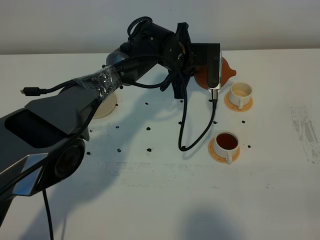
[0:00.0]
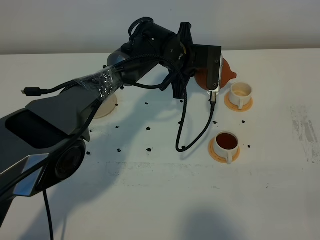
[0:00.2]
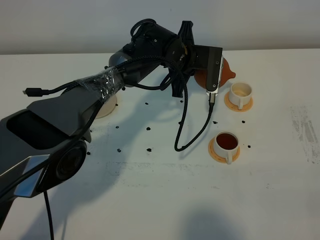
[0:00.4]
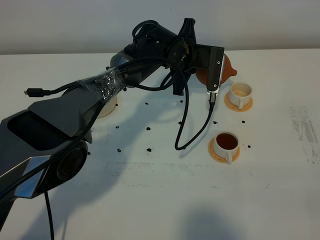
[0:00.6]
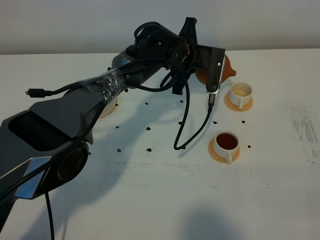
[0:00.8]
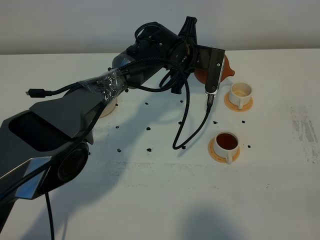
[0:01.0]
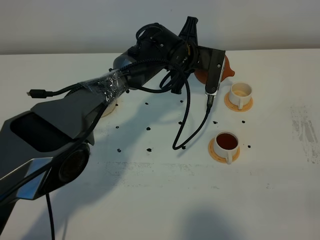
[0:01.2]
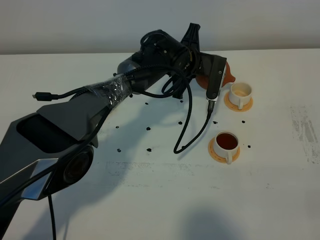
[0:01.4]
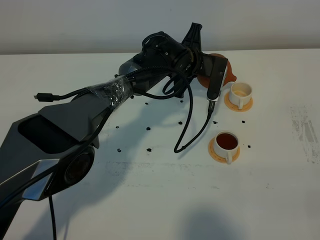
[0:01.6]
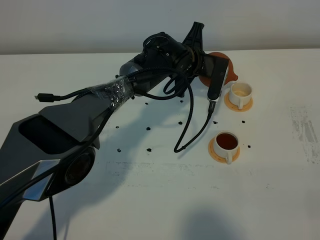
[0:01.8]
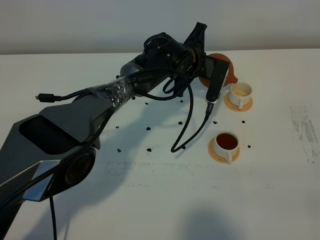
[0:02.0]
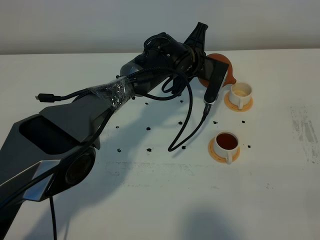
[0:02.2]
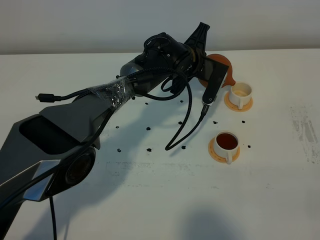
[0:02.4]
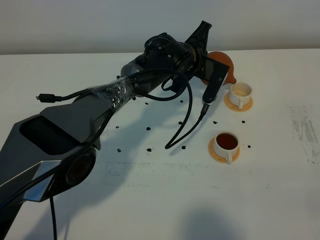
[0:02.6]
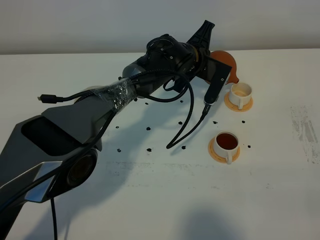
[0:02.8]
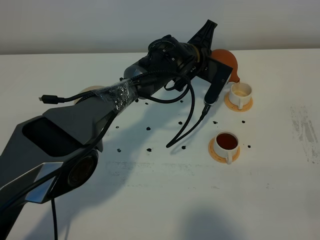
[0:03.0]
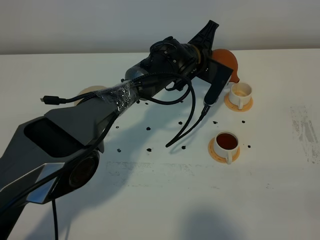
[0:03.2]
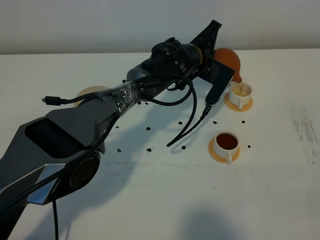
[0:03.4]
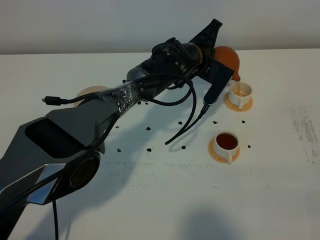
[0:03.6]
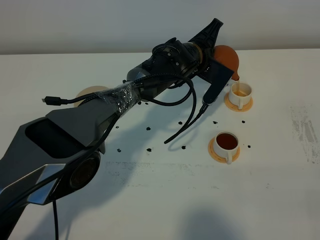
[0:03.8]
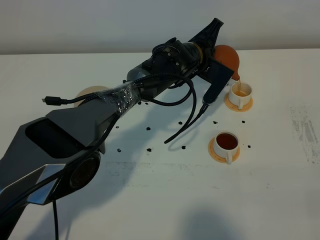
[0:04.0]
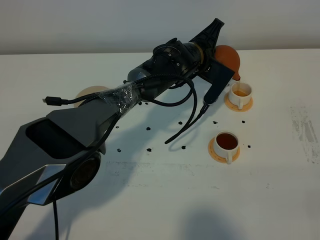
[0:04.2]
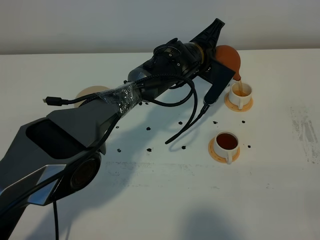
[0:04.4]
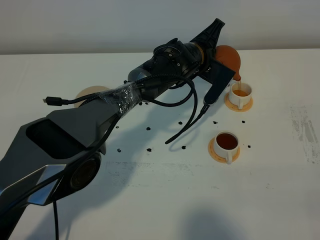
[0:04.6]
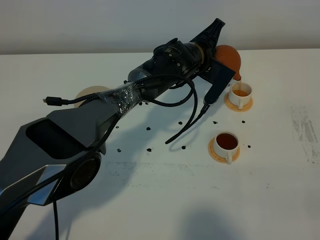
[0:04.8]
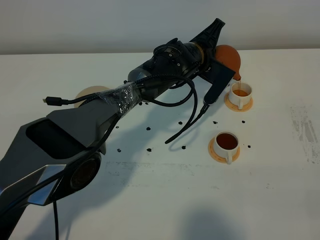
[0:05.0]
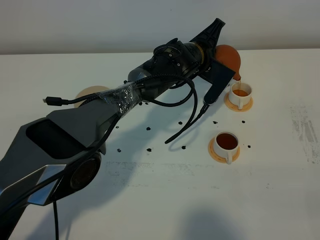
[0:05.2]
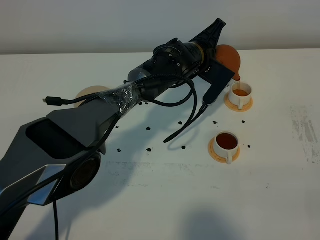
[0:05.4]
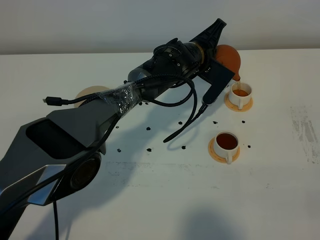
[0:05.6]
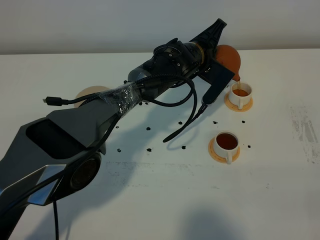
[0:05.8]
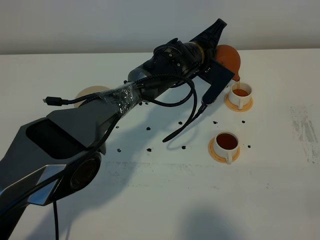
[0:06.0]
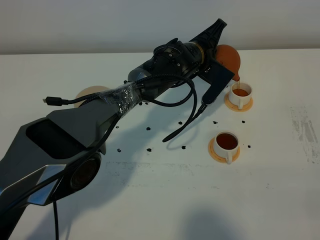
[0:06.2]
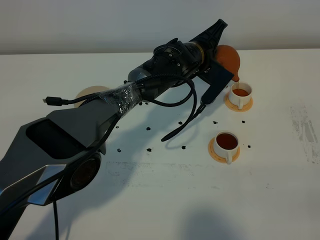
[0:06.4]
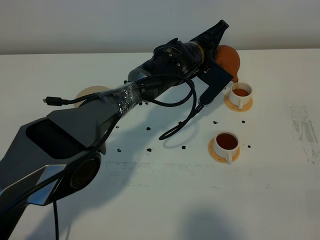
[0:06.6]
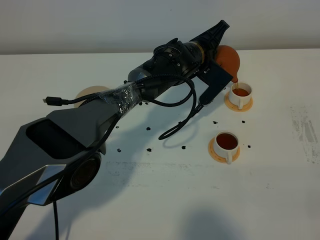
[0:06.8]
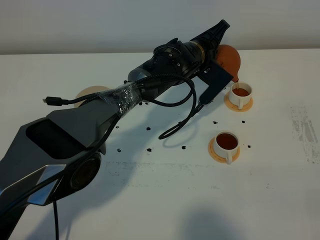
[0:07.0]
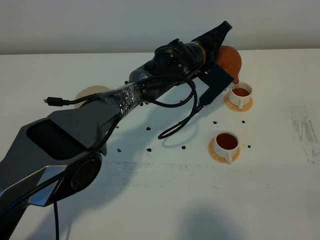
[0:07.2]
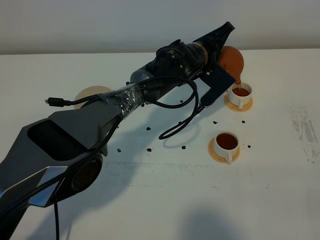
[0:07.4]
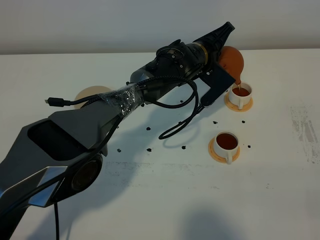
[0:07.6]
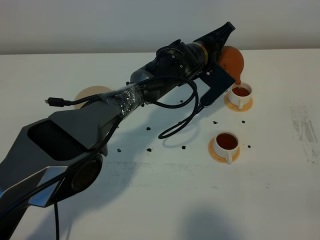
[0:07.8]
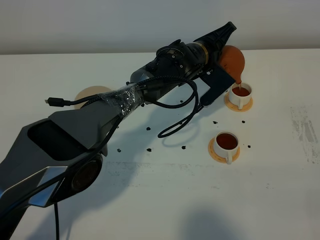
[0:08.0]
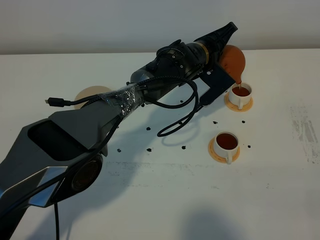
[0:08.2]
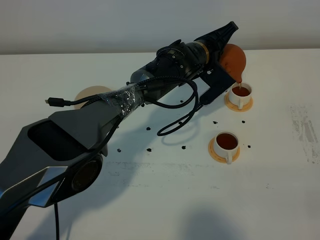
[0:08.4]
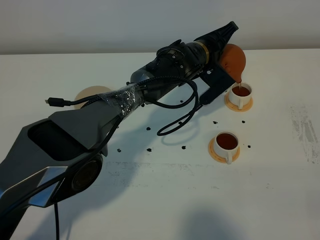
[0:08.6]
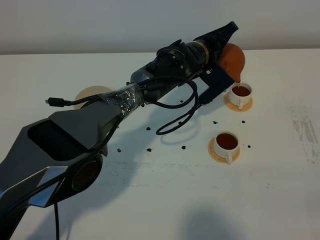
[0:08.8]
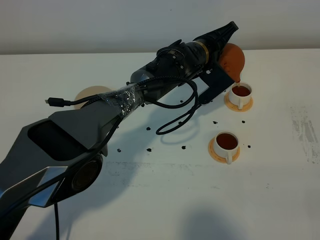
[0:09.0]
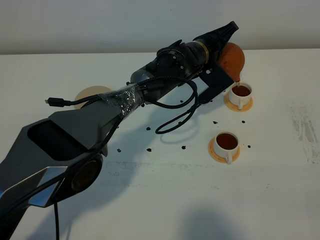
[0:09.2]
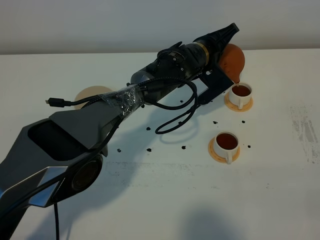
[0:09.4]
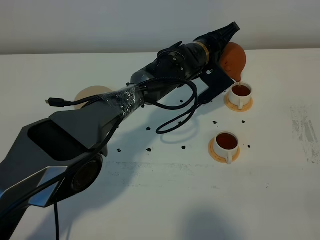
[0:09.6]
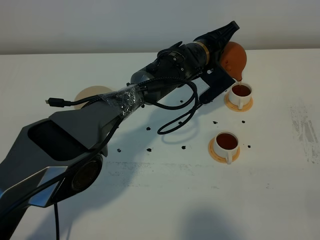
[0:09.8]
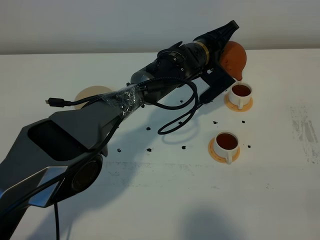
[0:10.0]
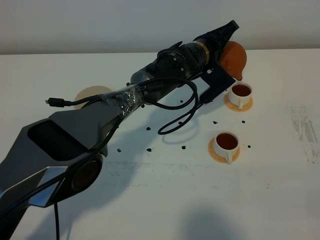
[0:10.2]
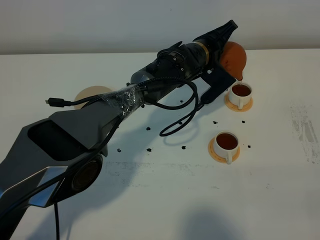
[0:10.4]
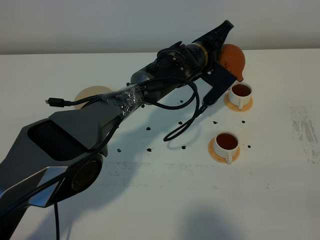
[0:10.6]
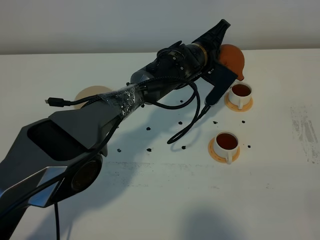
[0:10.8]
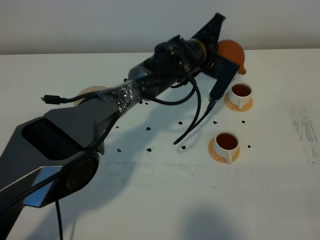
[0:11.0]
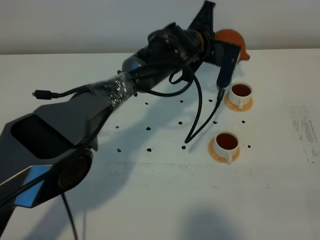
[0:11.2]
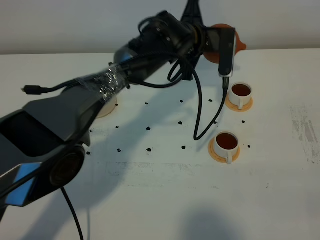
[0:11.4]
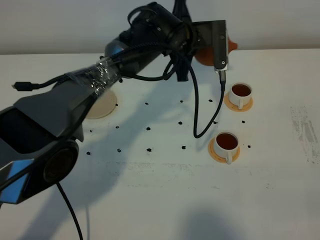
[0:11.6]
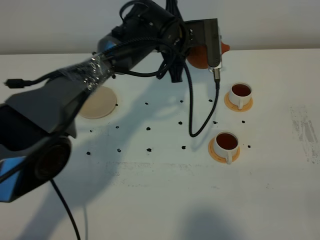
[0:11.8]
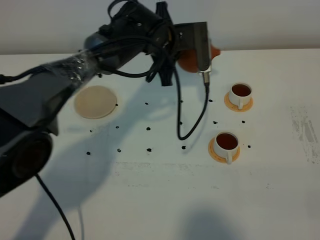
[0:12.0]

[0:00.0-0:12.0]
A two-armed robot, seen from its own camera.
Task of the whole recording: grasp the brown teapot and pour the tea into the two white teacups one by one, put the brown teapot back in its original place.
Step, 0:00.0 to 0:11.0: Pour tea into the teacup with the left gripper.
0:00.0 to 0:01.6: There are only small adjustments of the grippers.
0:01.6 to 0:03.0: There are only small adjustments of the grippers.
0:03.0 to 0:04.4: The grippers move only a little.
0:04.4 to 0:06.0: The two grippers keep their place.
0:06.0 to 0:09.0: The grippers stay close to where they were, moving slightly.
0:09.0 to 0:10.4: Neither gripper changes place.
0:10.4 to 0:12.0: The left gripper moves to the left and upward, approximately 10 cm.

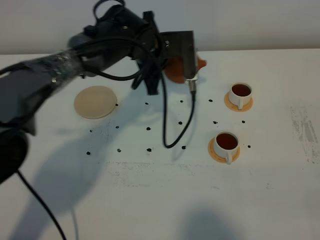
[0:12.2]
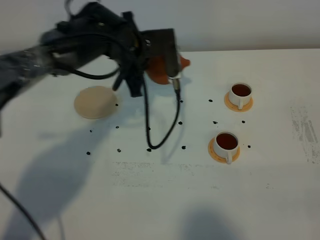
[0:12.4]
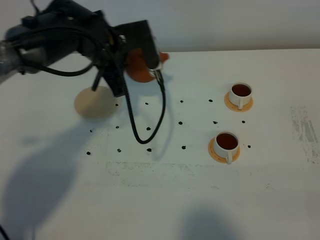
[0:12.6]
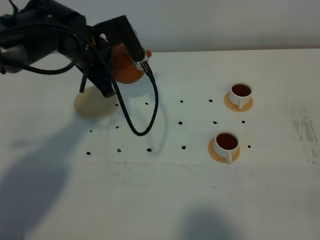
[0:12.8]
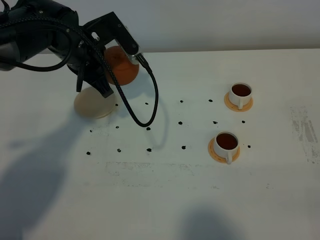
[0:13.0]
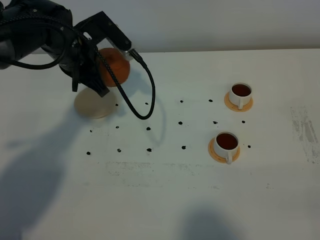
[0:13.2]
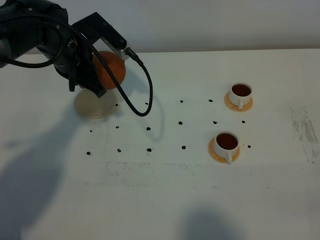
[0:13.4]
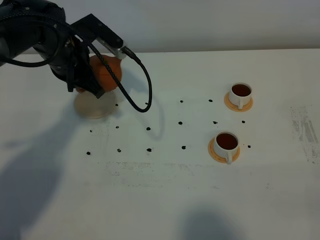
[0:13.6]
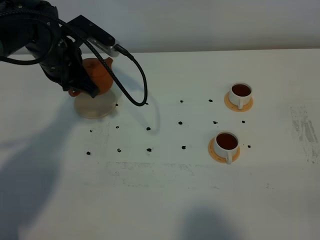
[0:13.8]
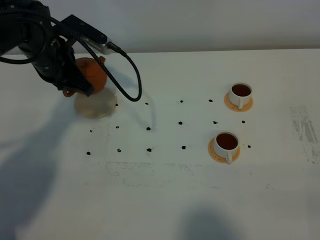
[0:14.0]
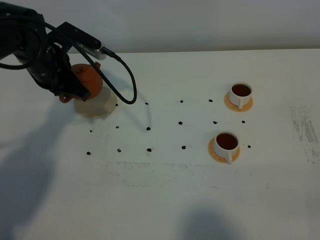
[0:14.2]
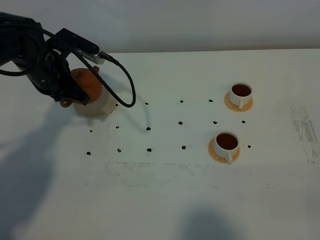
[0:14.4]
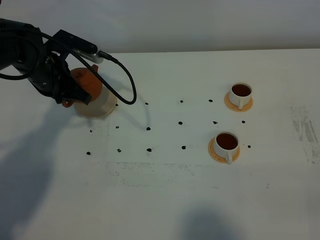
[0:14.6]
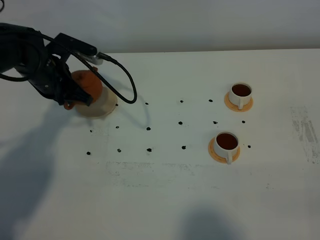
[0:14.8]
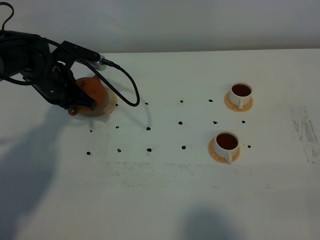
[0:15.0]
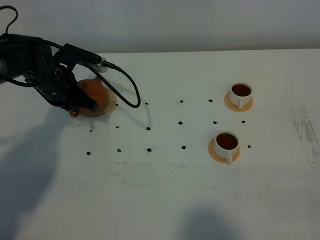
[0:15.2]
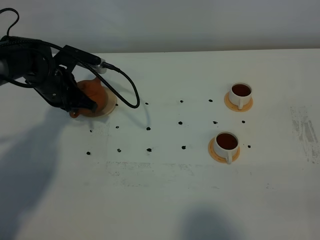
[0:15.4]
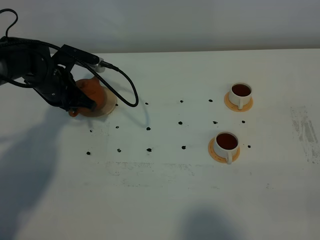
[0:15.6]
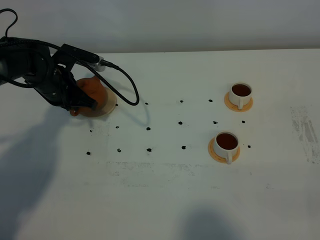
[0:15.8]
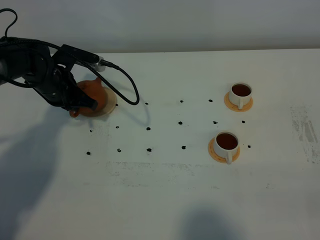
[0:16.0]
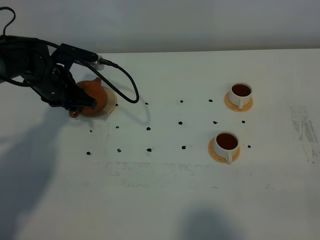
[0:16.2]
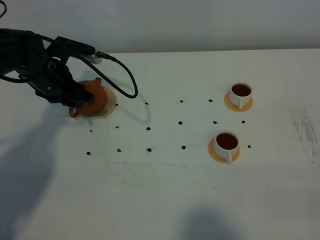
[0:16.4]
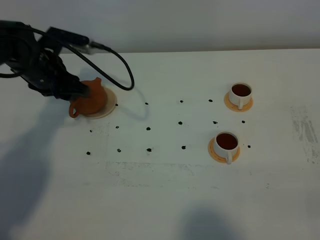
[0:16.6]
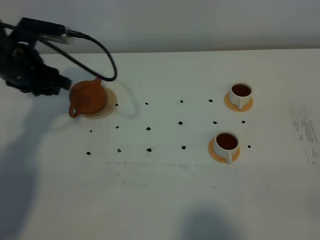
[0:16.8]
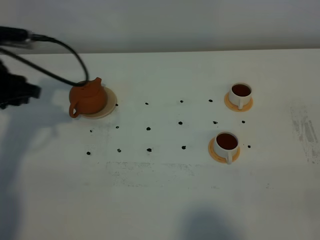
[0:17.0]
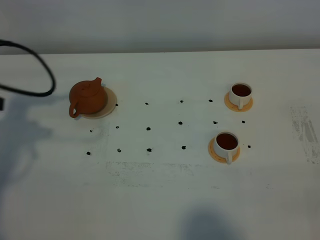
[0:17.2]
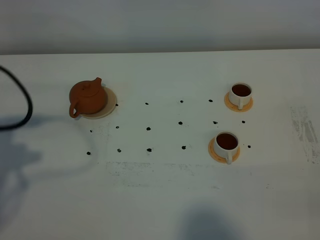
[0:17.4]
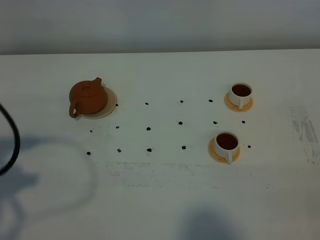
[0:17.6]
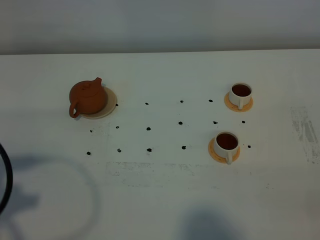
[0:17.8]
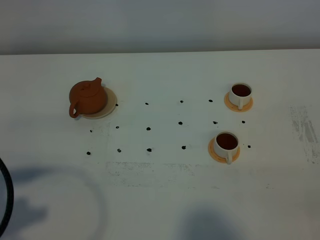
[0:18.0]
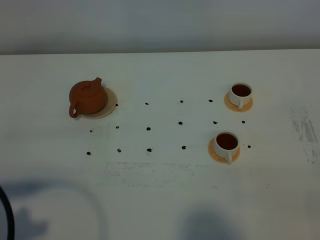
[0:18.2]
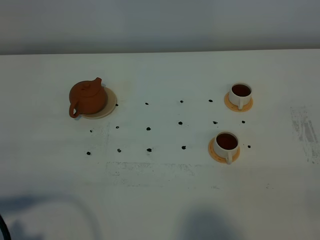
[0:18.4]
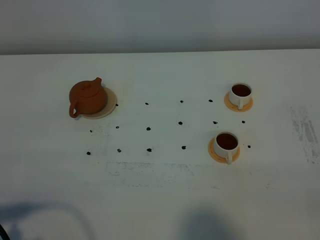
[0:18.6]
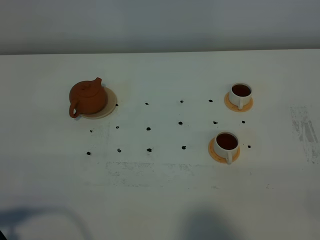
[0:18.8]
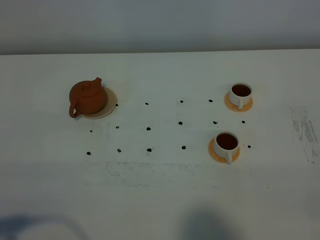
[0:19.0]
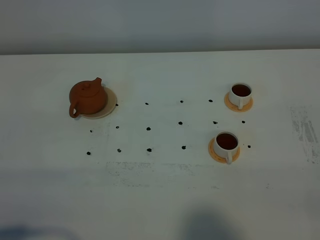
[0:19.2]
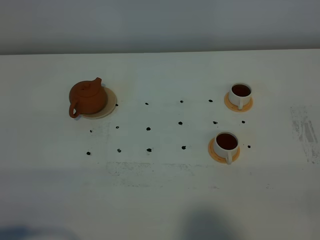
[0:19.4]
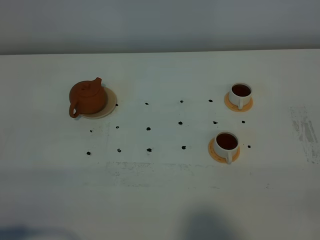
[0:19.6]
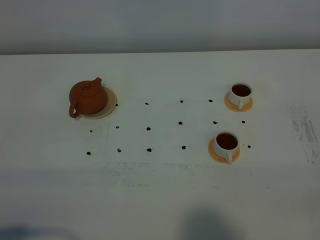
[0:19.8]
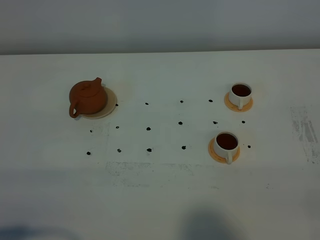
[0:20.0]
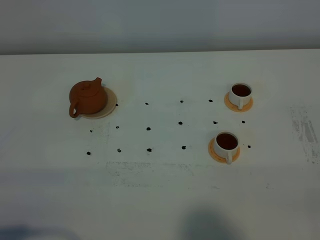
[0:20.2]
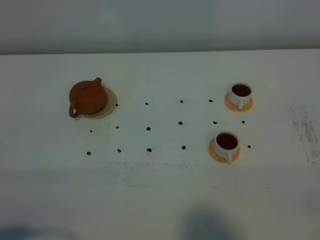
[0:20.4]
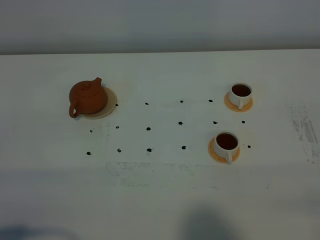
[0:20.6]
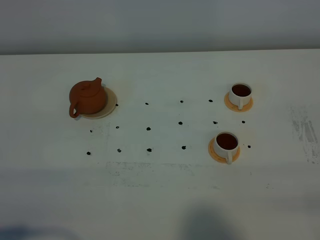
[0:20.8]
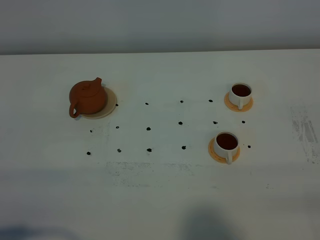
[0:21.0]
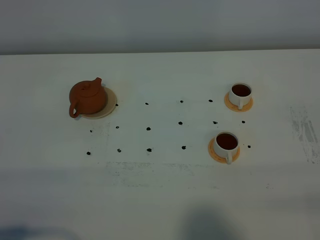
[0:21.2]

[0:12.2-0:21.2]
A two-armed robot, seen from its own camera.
Task of the whole recording: grasp the brown teapot and pour the tea into the two white teacups one by one, put the brown teapot back in its original place.
0:12.2 to 0:13.8: The left gripper moves to the left, about 15 cm.
0:13.8 to 0:15.2: The left gripper shifts about 10 cm downward.
0:15.2 to 0:16.6: The left gripper moves about 5 cm, and opens.
0:16.6 to 0:18.2: The left gripper goes approximately 35 cm backward.
0:18.2 to 0:19.8: The left gripper is displaced backward and downward by some 10 cm.

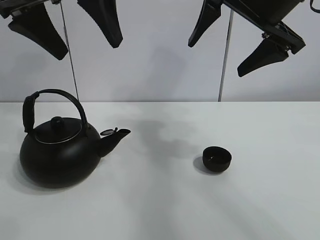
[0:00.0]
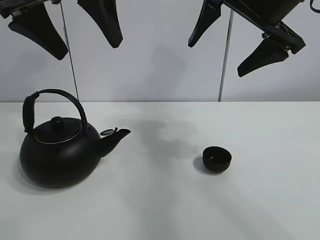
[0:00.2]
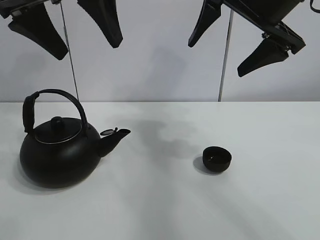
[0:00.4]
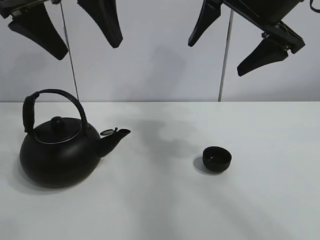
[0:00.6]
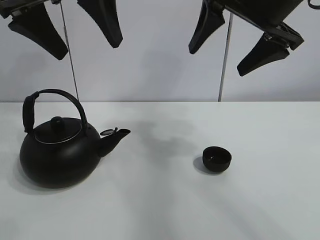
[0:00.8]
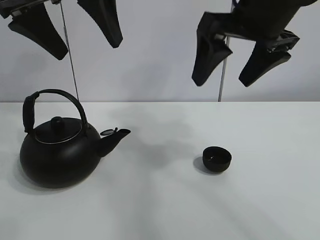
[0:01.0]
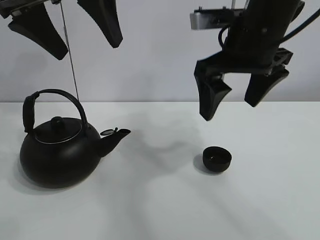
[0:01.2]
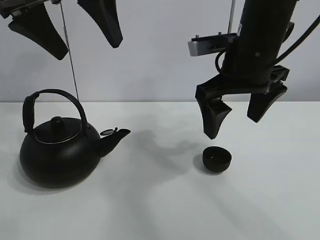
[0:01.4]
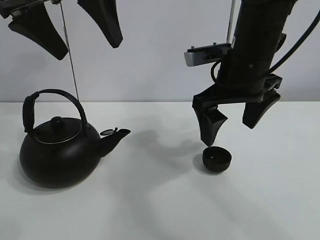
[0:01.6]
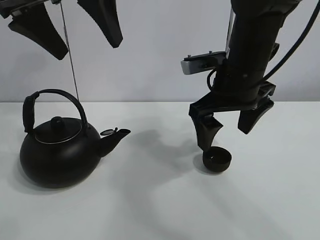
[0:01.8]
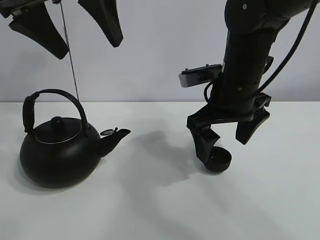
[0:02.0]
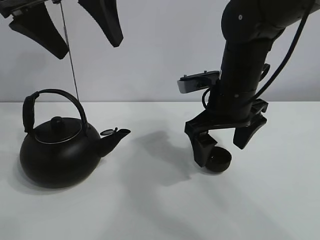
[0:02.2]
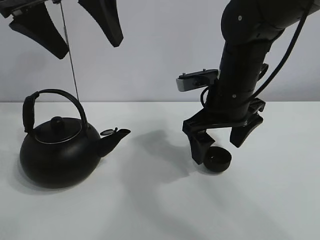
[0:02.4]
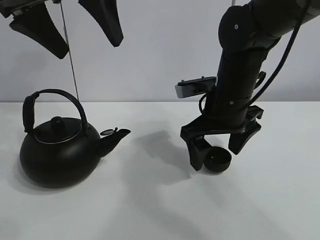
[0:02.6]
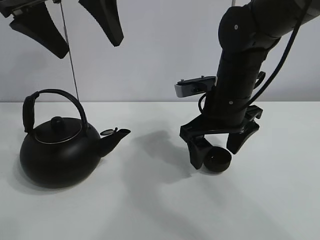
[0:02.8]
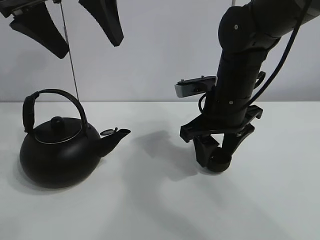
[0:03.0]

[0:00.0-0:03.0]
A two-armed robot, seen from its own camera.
Task of the whole recording: pour tea into the teacup.
0:01.6 to 0:03.0: The right gripper is displaced downward by about 5 cm, and closes its fingers.
